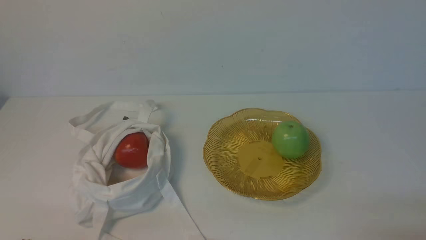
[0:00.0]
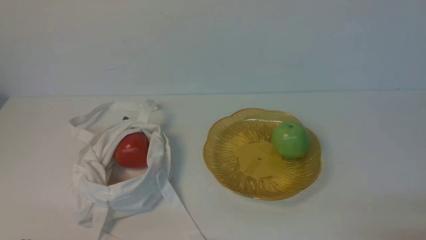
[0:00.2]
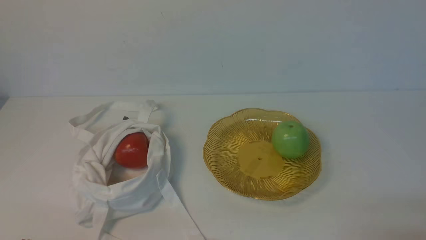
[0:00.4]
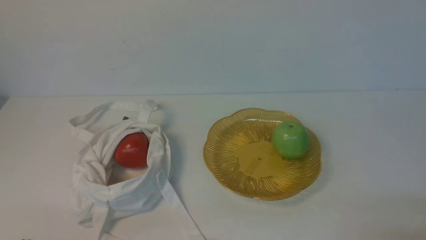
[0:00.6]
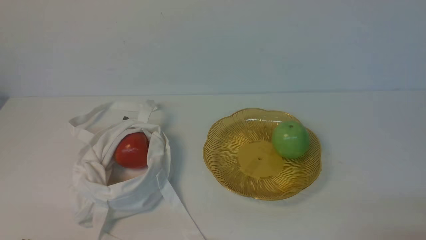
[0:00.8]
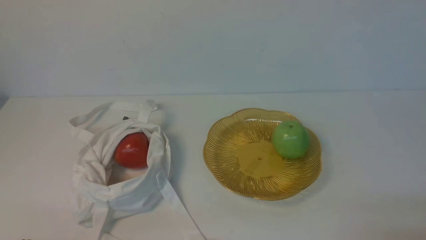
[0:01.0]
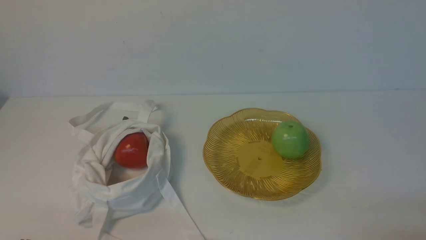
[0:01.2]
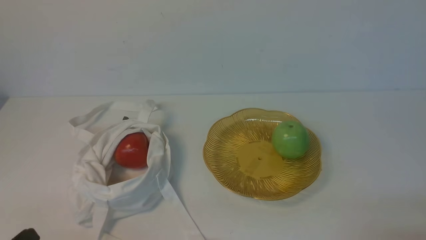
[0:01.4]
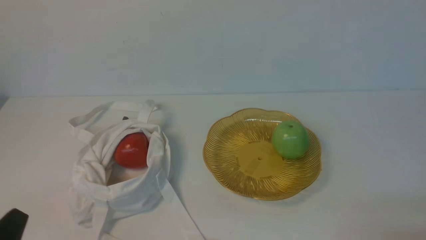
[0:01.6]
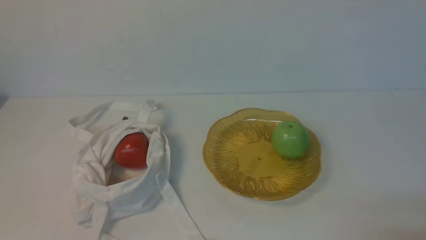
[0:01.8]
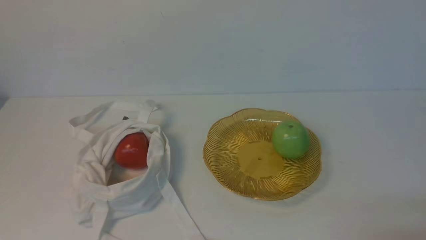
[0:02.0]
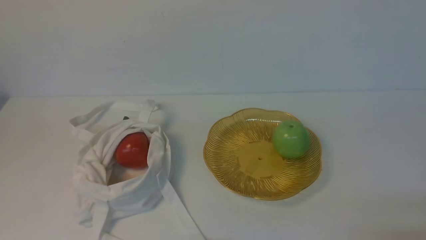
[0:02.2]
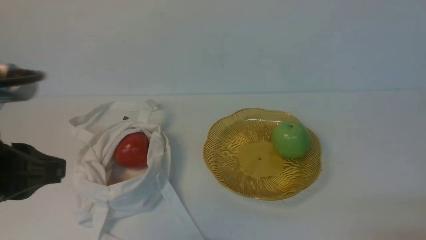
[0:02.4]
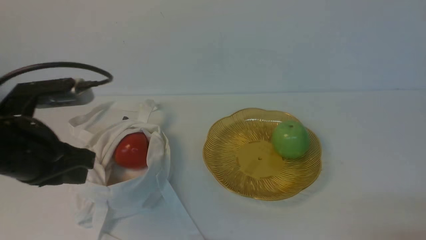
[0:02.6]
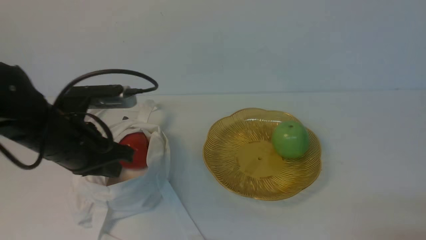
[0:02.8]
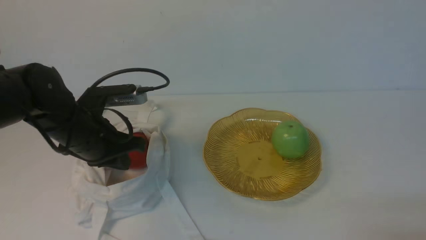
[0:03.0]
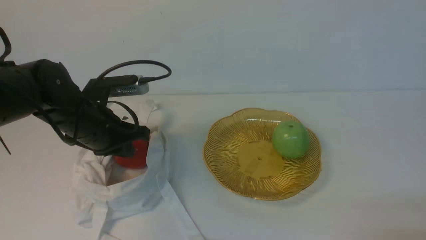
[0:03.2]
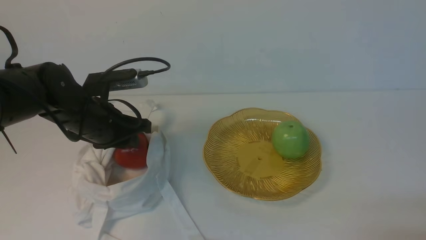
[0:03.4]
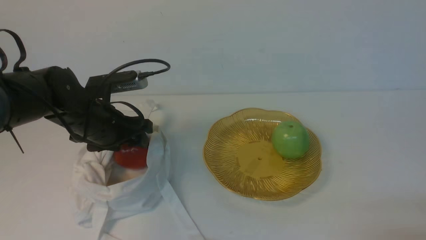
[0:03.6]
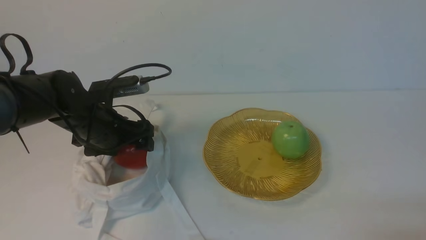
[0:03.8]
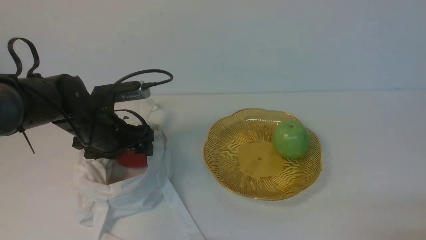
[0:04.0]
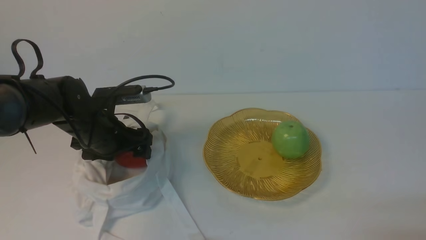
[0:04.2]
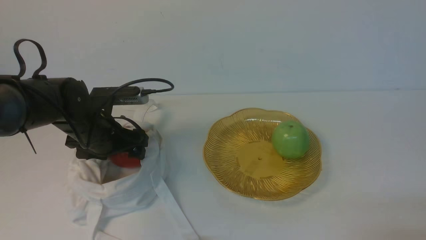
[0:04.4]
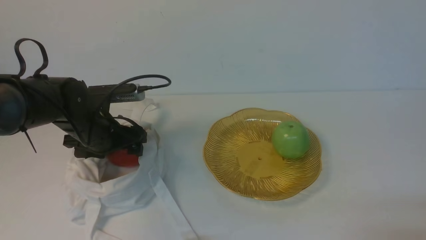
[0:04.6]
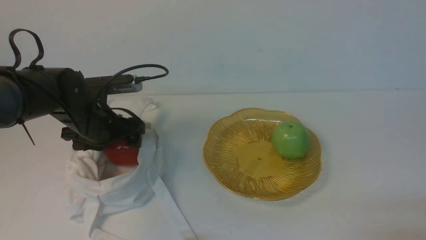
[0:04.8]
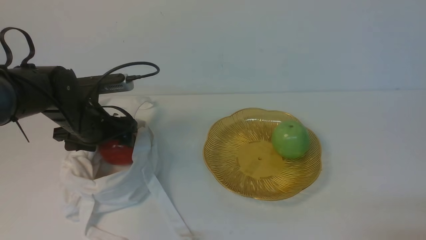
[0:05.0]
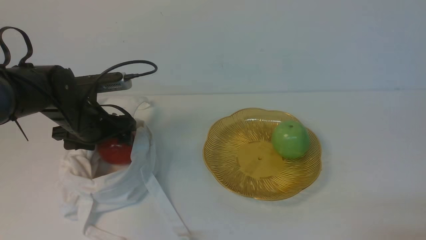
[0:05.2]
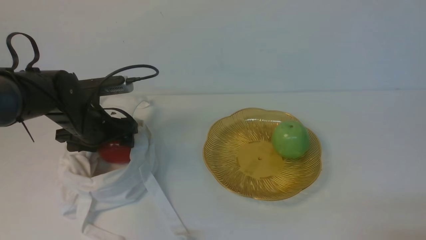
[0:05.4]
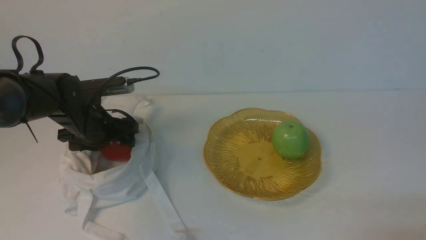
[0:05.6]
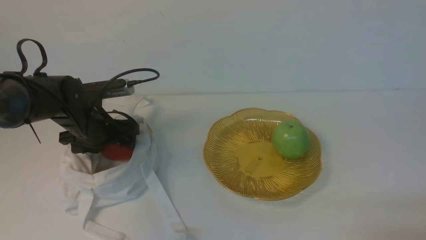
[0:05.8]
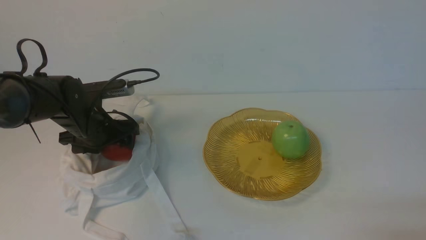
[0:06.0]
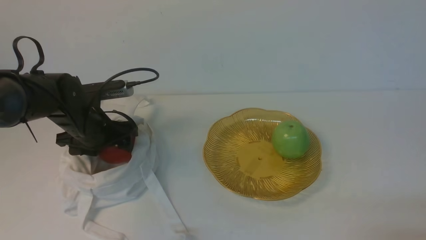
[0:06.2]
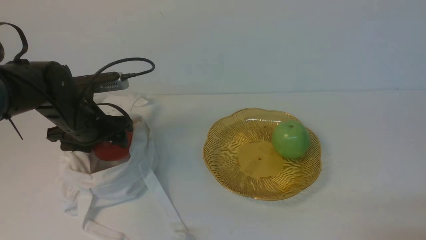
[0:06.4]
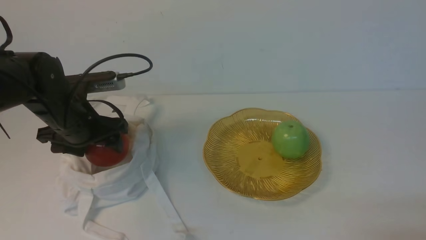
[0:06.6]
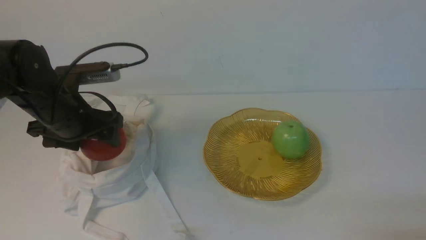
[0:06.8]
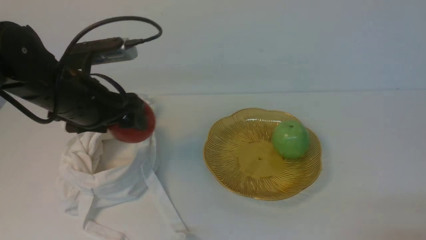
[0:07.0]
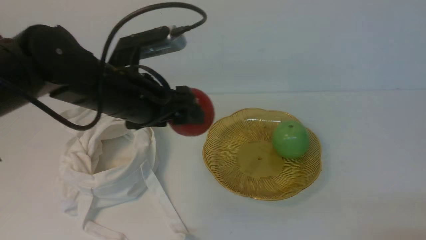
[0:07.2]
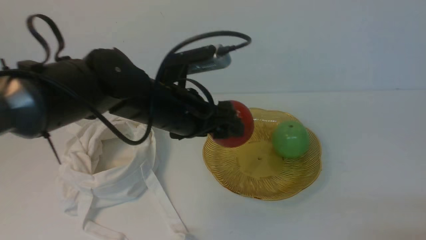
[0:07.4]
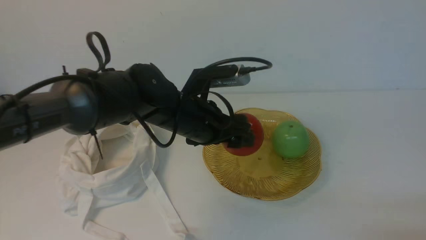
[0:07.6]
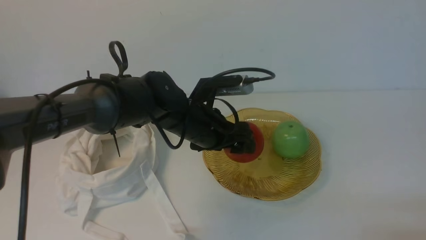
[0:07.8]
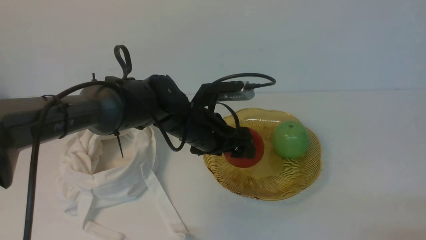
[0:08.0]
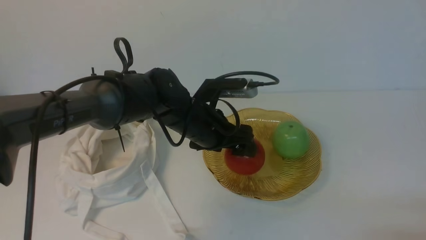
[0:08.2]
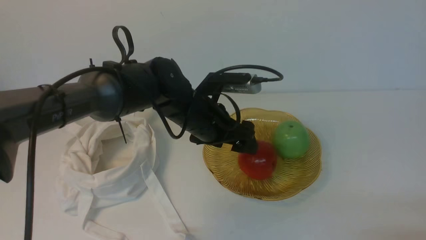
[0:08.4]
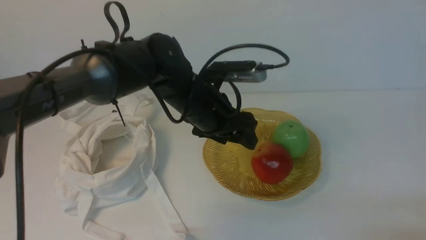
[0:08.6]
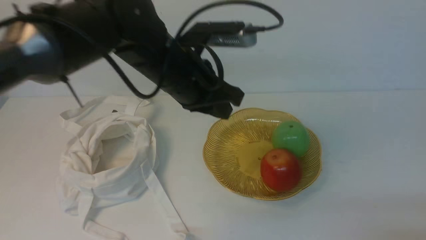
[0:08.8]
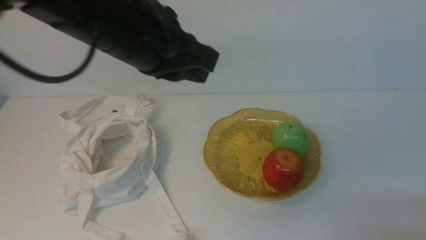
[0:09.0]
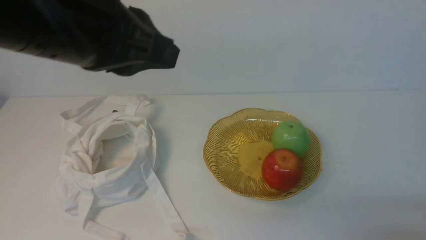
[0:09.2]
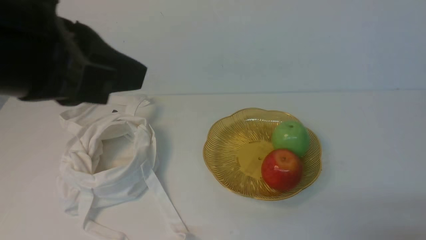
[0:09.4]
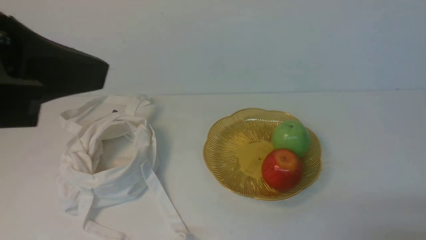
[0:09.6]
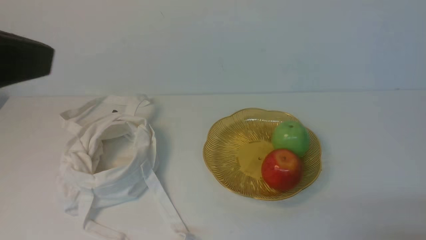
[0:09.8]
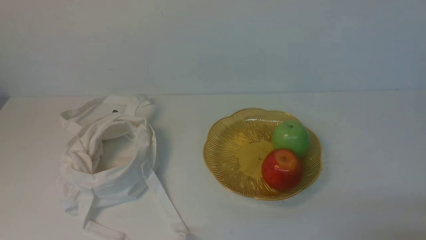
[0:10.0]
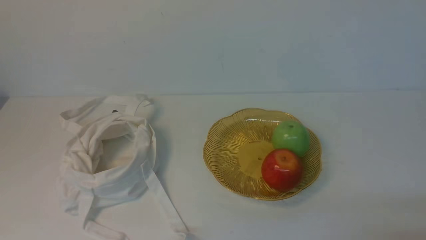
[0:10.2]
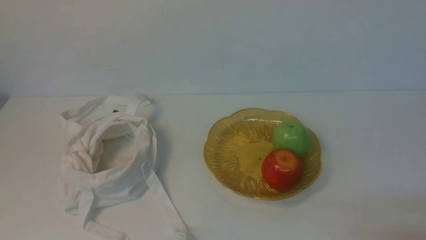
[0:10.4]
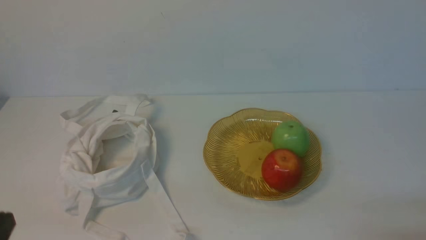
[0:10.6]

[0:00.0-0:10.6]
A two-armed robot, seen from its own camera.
Step, 0.0 to 6.4 s: use the left arm to grab an apple from the bag.
Step, 6.6 to 8.4 s: use the left arm to put the apple into the empty plate on the right.
1.6 to 3.0 s: The left gripper travels forward by approximately 25 cm.
3.0 to 4.6 s: The left gripper changes place by about 5 cm, and opens its fingers.
4.6 to 6.0 s: The grippers stay close to where they were, moving slightly.
6.0 to 7.6 s: The left gripper is displaced to the right by approximately 15 cm.
7.6 to 9.0 s: The left gripper moves upward and backward, some 20 cm, and closes its fingers.
9.0 to 10.6 s: The left gripper shifts roughly 30 cm backward, downward and to the left.

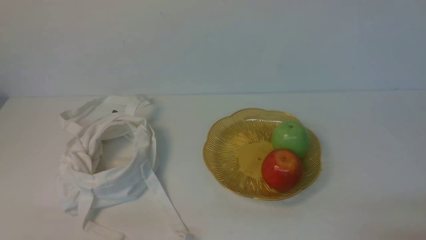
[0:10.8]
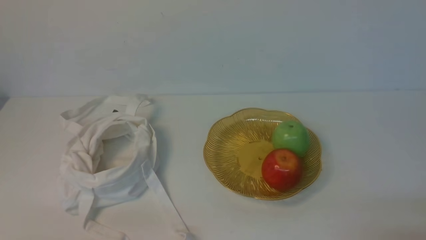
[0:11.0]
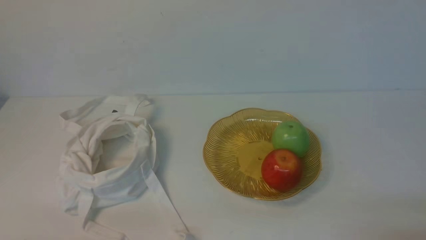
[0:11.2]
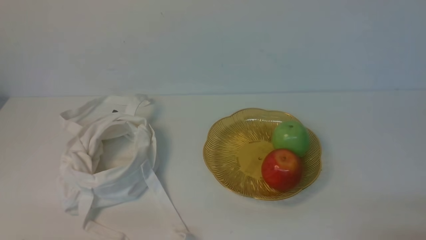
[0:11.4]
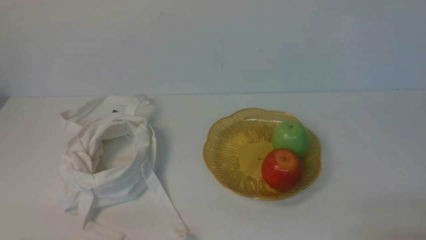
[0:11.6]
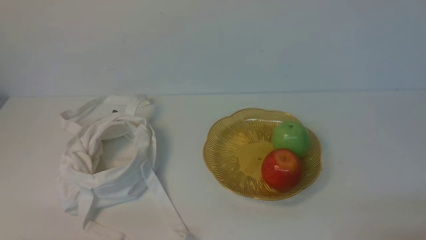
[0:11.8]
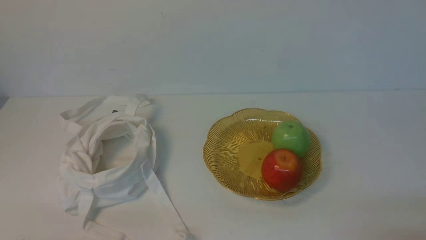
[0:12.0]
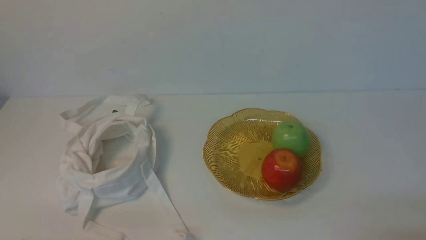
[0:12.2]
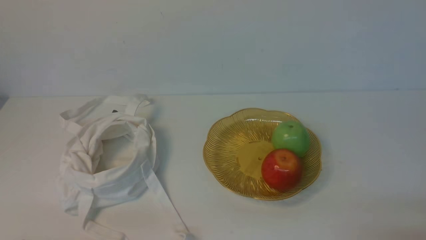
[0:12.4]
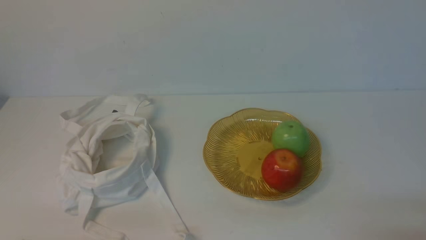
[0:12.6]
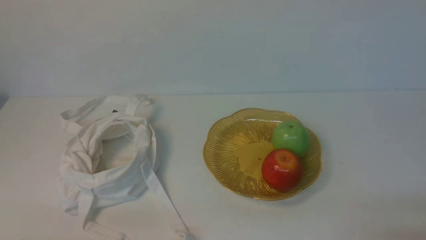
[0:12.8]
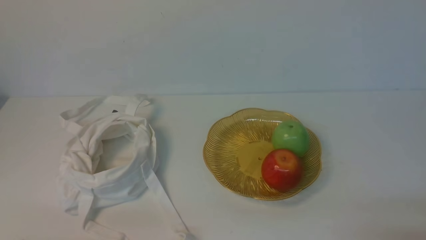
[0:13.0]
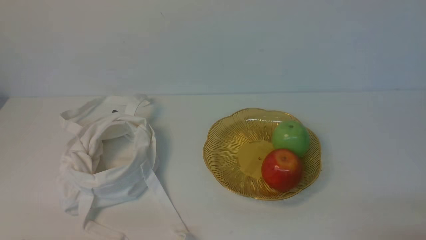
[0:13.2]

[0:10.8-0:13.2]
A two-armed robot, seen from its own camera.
12.0 to 13.2 s: Neither gripper changes place.

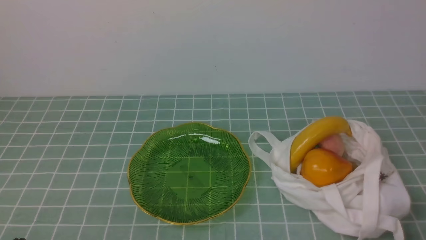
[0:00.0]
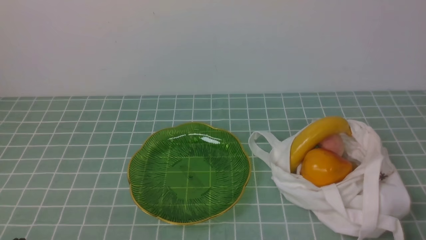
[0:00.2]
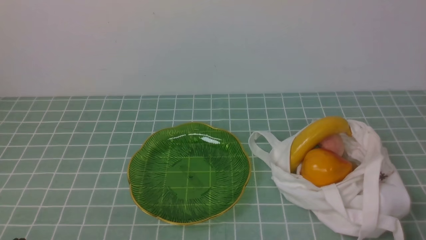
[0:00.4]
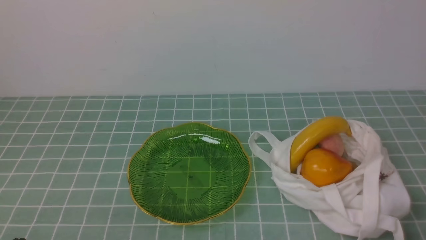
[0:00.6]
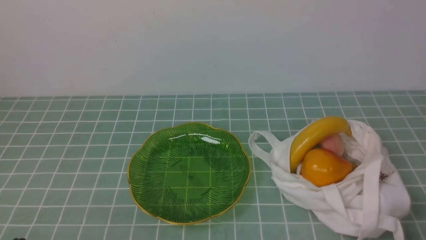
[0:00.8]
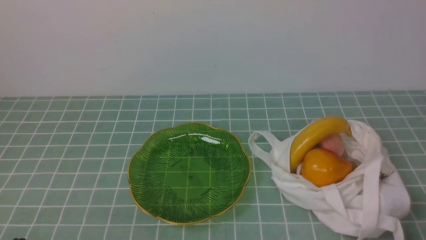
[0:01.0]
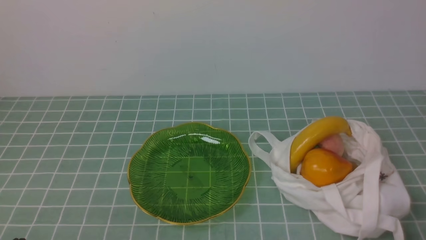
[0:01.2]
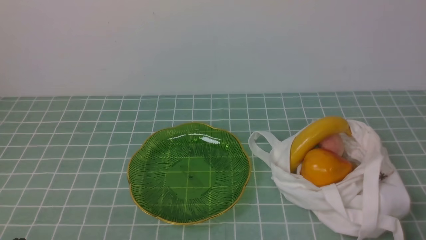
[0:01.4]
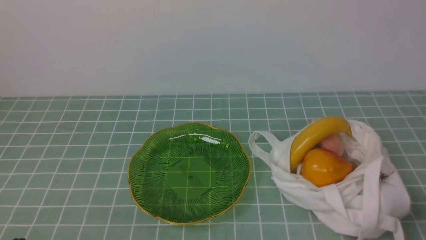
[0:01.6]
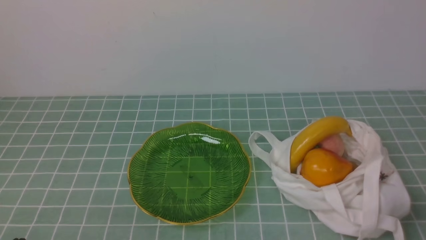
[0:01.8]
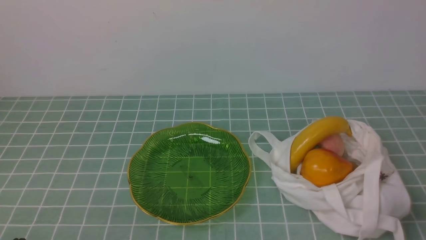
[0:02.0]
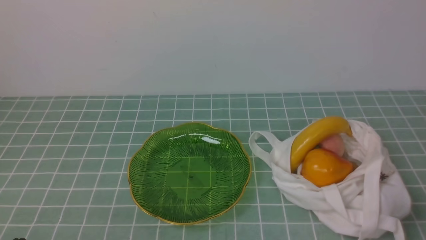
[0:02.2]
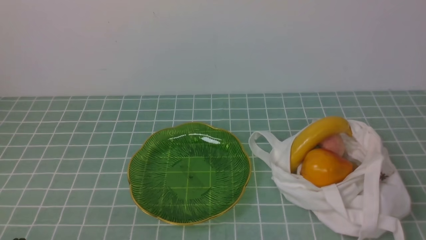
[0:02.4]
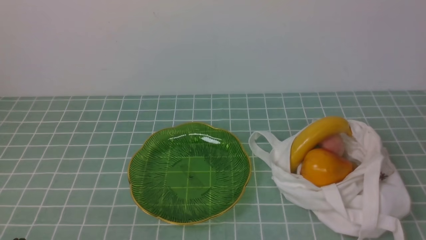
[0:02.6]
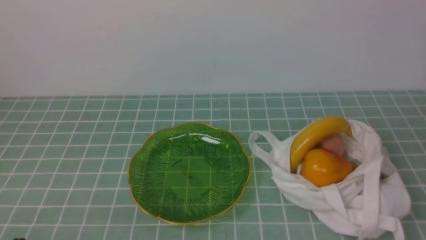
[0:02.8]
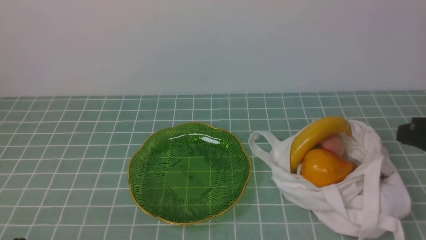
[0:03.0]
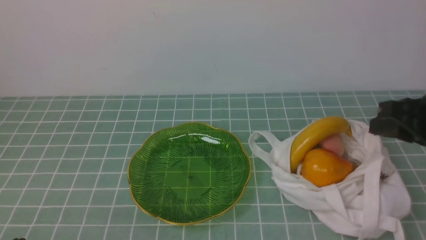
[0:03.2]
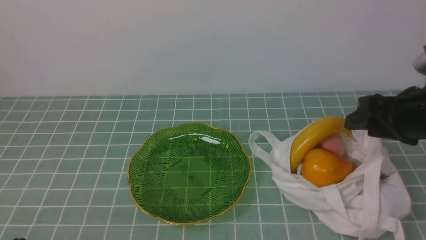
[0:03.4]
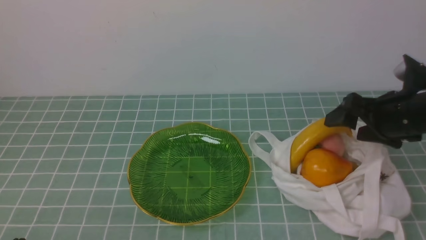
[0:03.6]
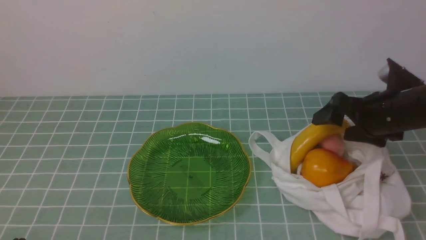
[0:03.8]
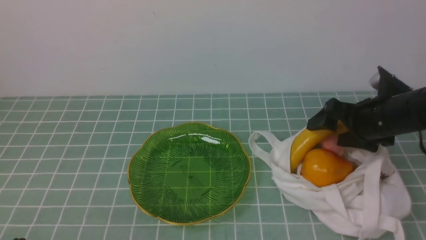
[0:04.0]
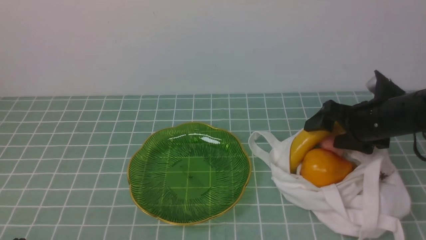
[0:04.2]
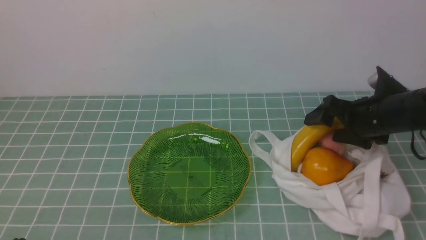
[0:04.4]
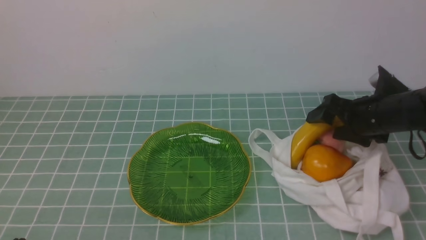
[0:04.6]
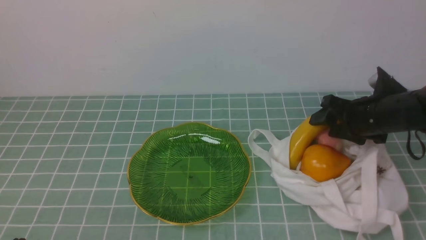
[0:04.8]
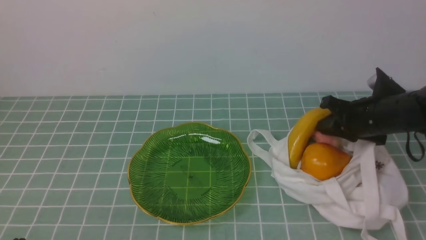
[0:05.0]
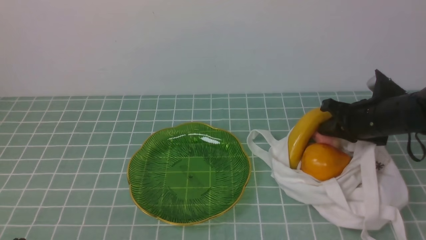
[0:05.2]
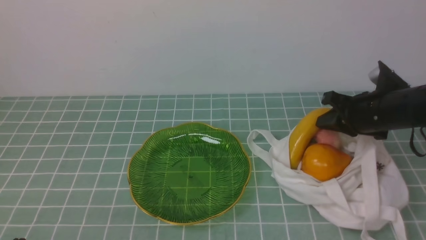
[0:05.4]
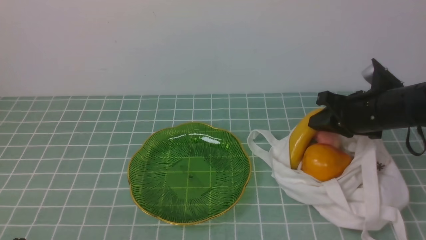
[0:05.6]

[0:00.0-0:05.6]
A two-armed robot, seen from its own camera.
2.8 to 4.2 s: The right gripper moves forward and downward, roughly 25 cm, and opens up.
4.2 to 5.6 s: The right gripper closes up.
